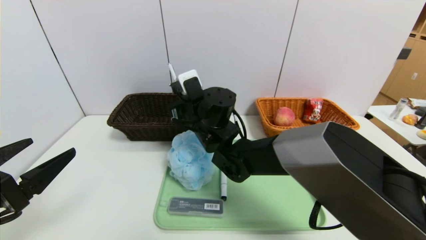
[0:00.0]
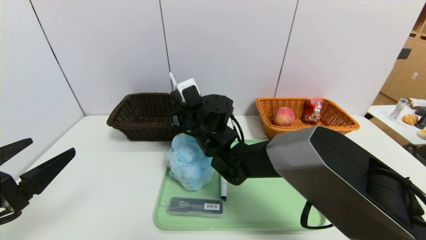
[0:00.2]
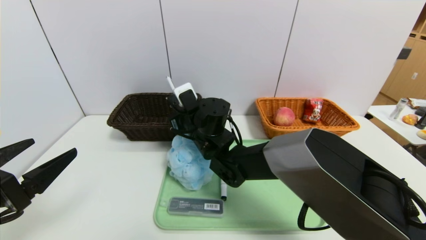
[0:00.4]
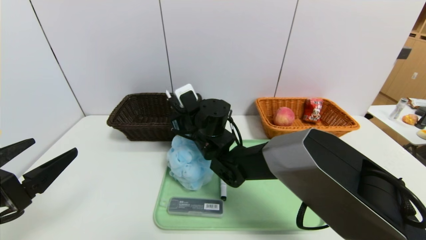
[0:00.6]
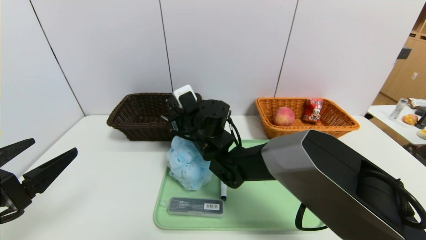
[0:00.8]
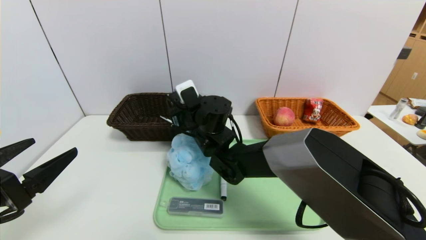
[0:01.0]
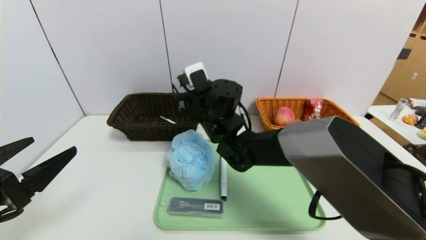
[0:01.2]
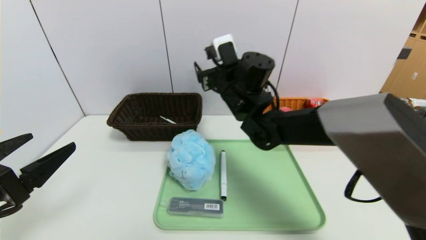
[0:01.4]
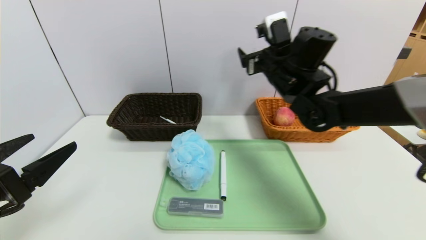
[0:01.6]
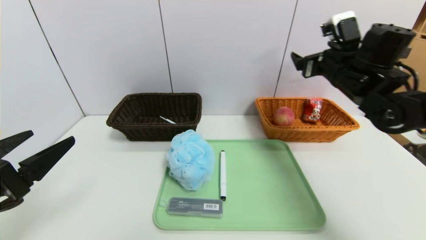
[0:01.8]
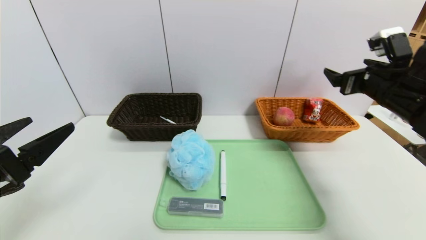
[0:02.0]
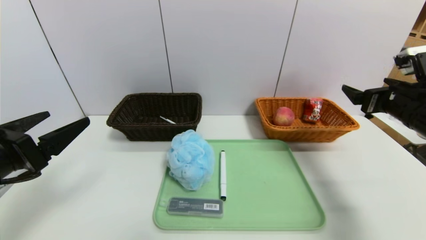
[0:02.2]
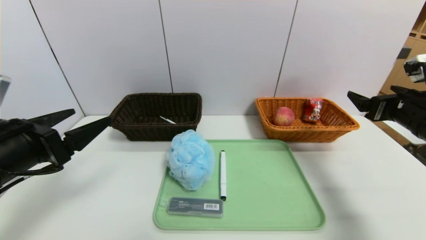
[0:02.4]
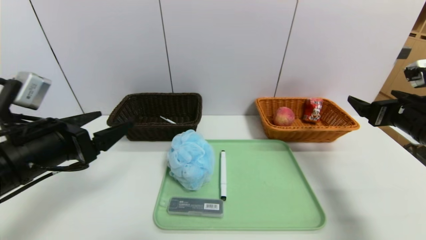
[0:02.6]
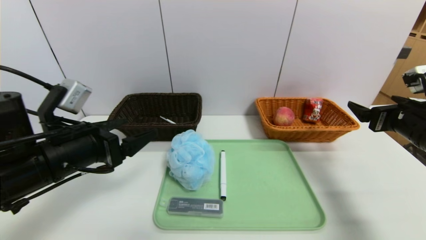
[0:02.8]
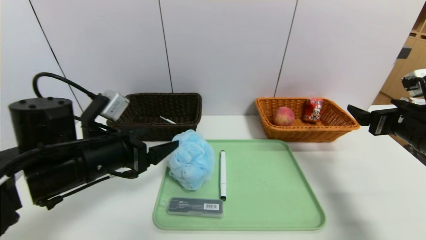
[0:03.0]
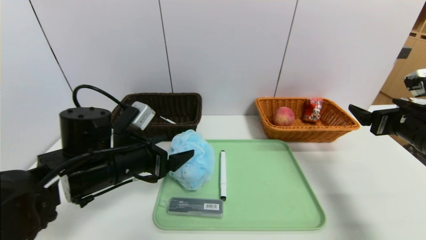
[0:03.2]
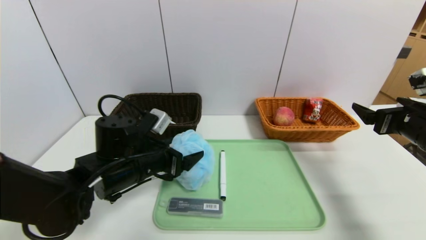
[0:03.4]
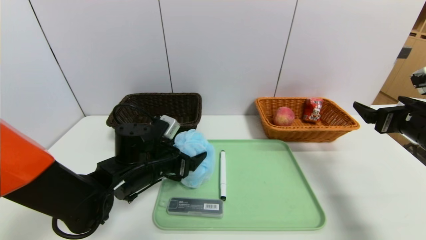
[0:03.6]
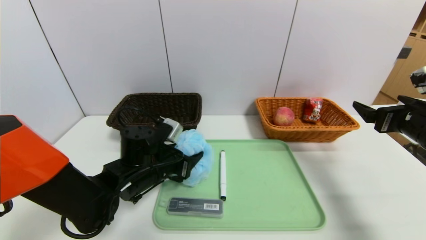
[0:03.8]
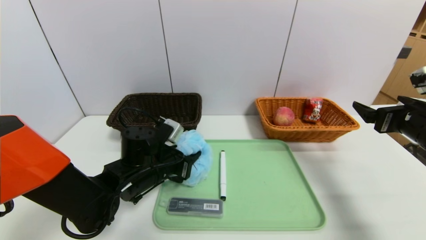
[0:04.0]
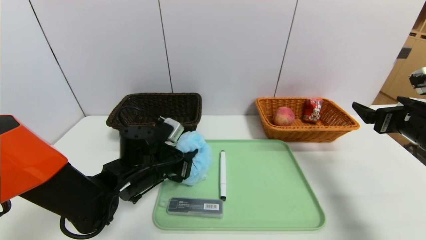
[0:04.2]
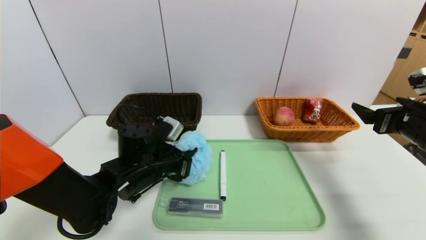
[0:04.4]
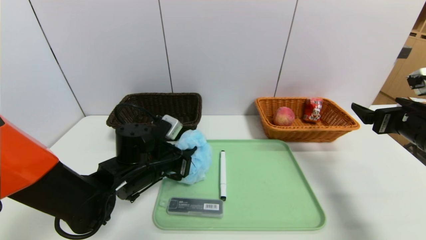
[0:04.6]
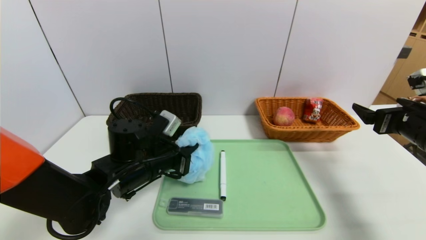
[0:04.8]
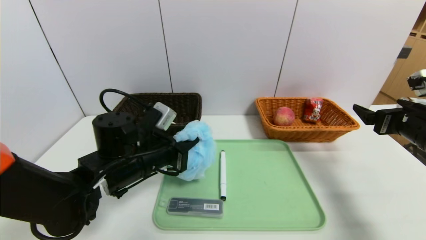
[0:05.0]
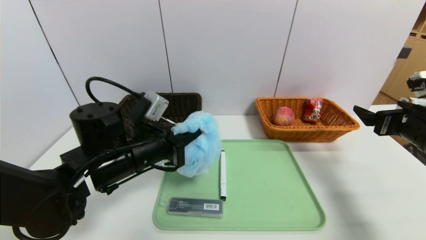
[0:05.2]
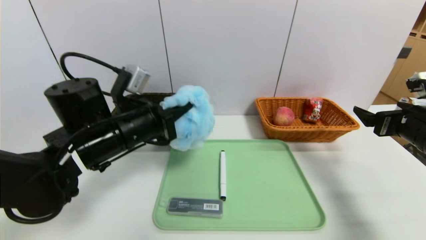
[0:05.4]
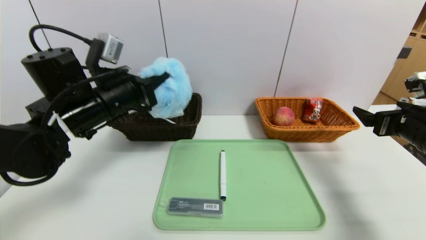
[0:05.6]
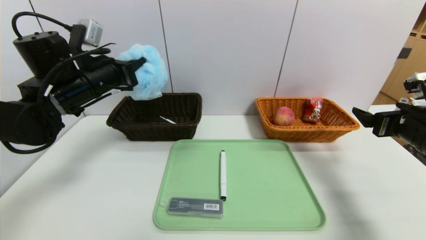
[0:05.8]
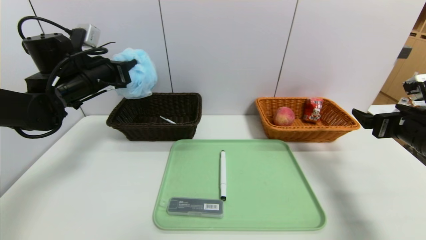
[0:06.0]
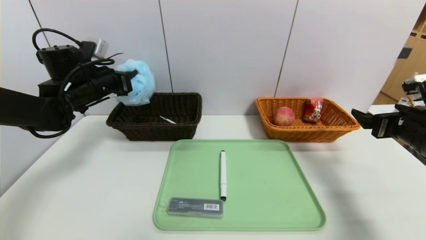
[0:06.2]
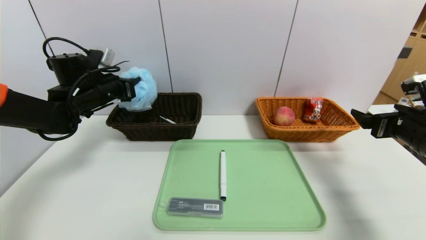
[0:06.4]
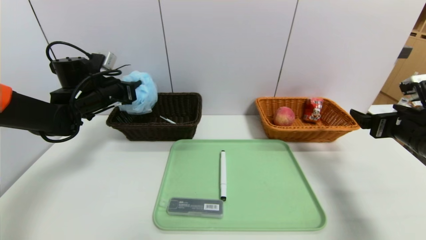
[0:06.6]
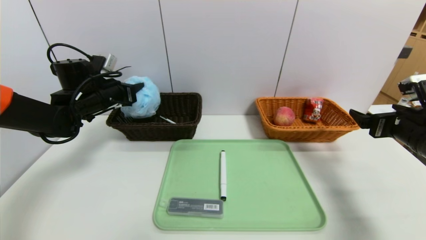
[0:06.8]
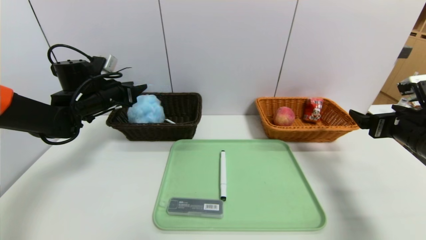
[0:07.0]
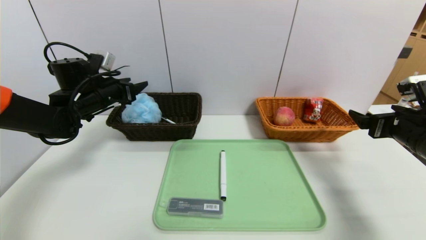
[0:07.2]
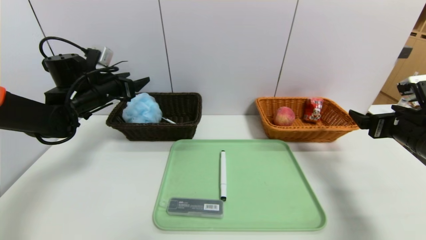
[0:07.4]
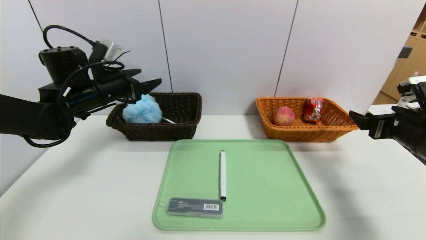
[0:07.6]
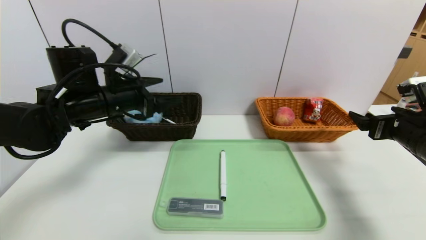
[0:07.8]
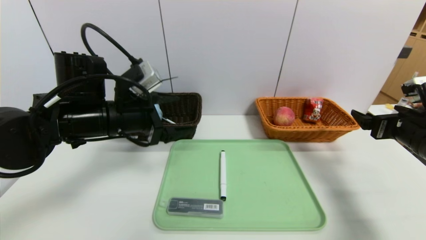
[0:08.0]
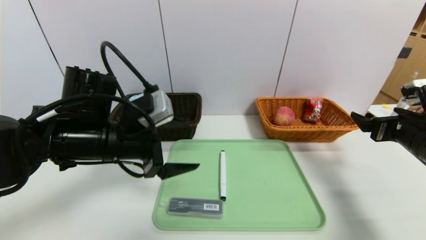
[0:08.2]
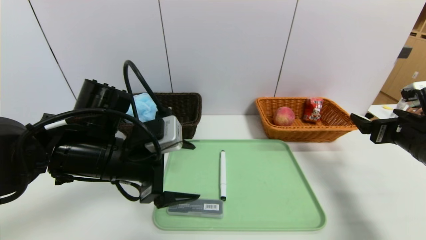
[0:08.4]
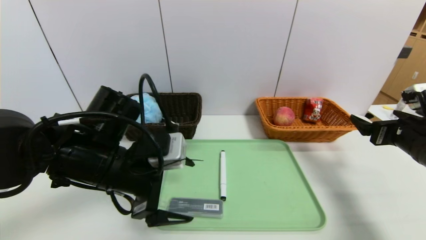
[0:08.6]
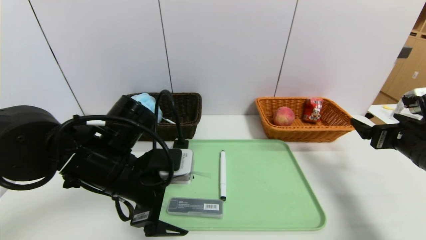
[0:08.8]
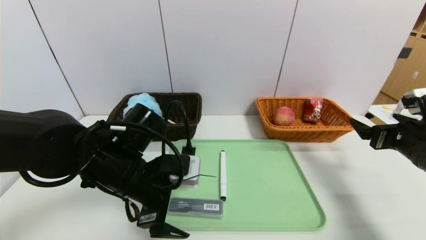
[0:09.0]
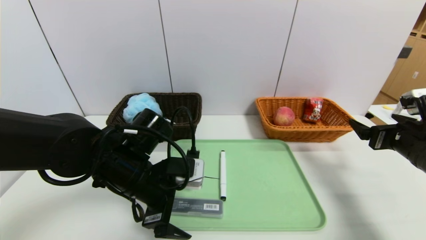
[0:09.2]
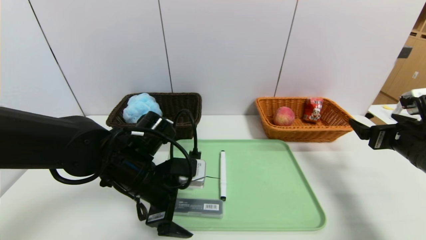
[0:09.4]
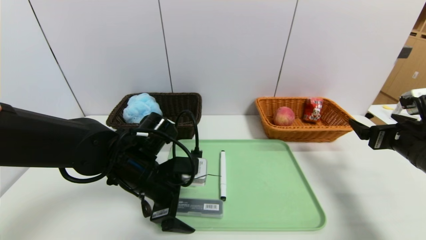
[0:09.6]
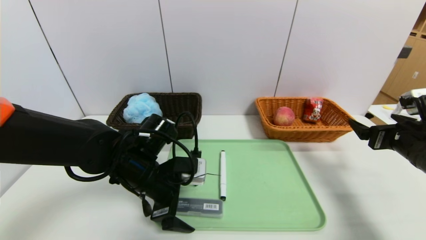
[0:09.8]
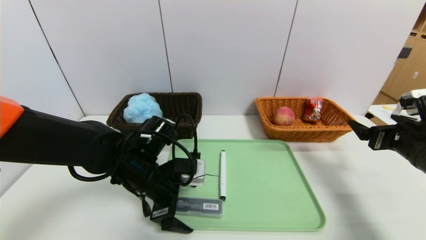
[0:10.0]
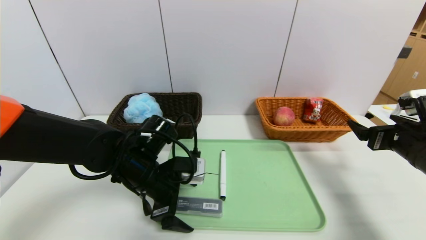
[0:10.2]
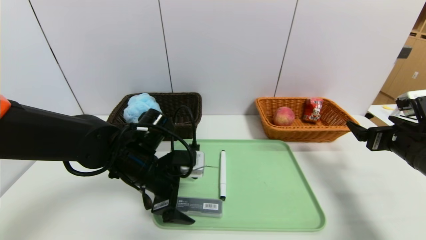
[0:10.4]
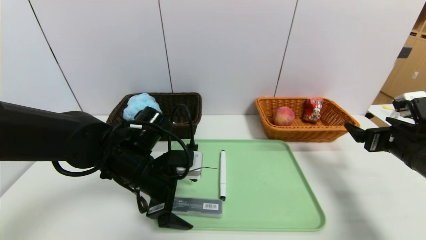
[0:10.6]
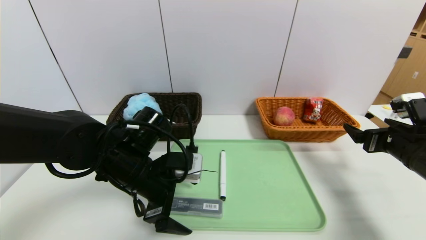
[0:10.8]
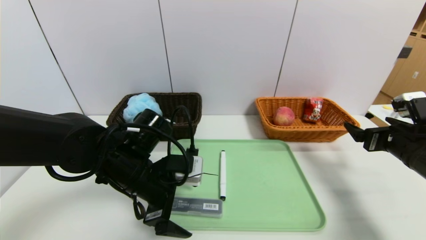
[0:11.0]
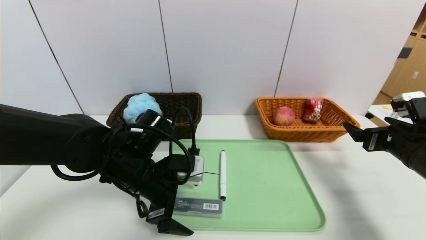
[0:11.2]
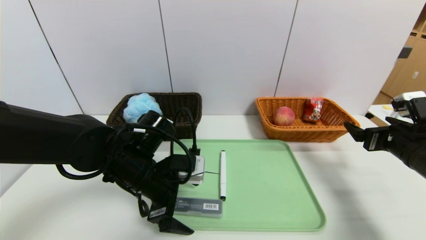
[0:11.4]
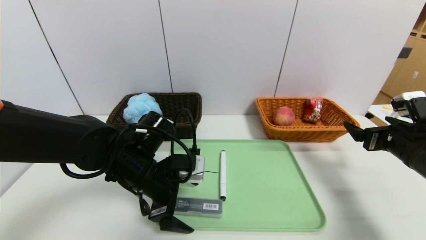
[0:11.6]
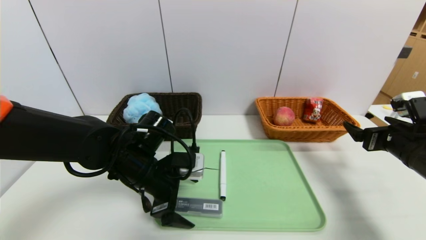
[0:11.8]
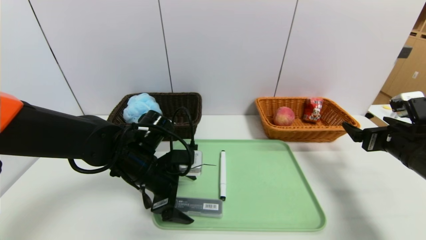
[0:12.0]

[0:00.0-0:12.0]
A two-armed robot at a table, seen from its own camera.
Task of the whole recording: place the food in the right basket with the right gripper, and place the non food items in the left basket with the left gripper.
Step, 1.8 to 7.2 s: Grasp the bath ball and put it in the left basket.
0.0 to 1.6 s: The right gripper travels to the right and upward by roughly 20 cm, and opens.
1.6 to 3.0 s: The right gripper shifts approximately 25 cm to the right and backward, while the left gripper travels forward and to the right by approximately 15 cm.
3.0 to 4.4 s: The left gripper goes some 10 cm downward, to the right and forward, and closes.
4.4 to 6.0 s: The left gripper heads upward, to the left and forward, covering approximately 25 cm.
6.0 to 7.6 s: The left gripper opens up.
7.6 to 9.0 s: The left gripper goes some 20 cm backward, to the right and downward.
9.0 to 12.0 s: The grippers make only small movements.

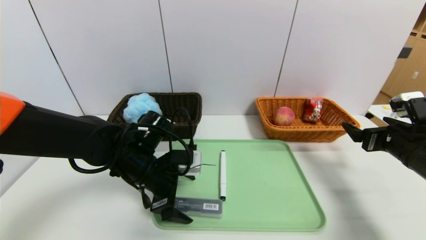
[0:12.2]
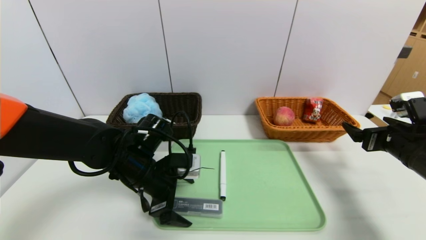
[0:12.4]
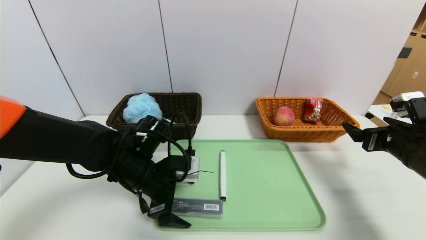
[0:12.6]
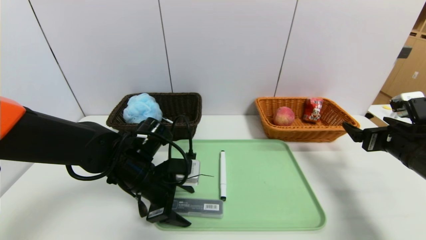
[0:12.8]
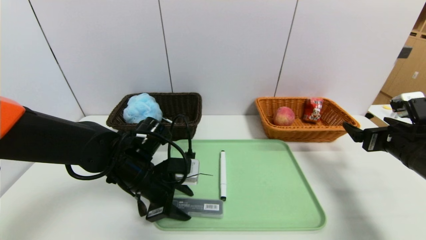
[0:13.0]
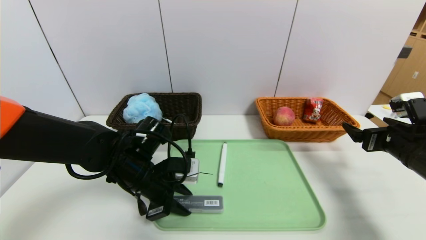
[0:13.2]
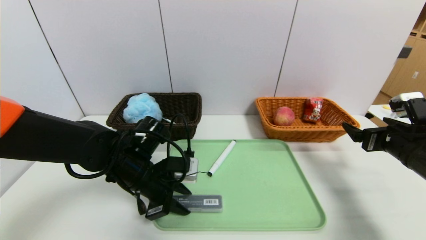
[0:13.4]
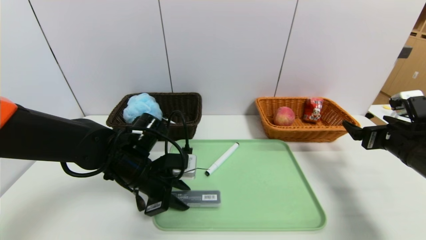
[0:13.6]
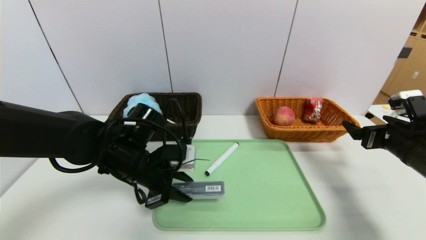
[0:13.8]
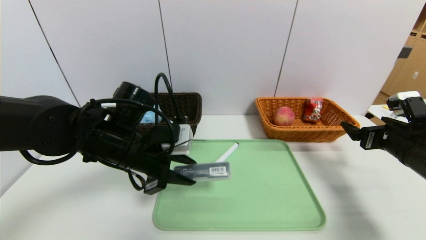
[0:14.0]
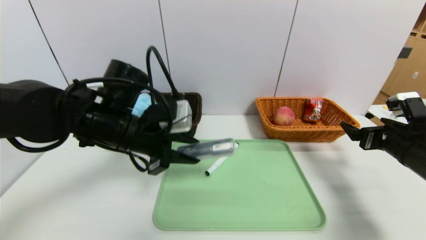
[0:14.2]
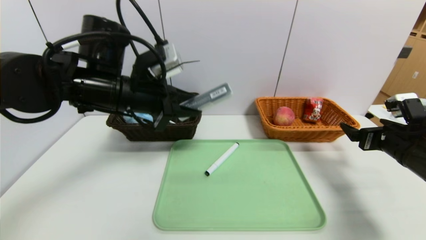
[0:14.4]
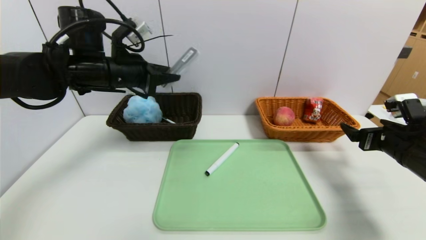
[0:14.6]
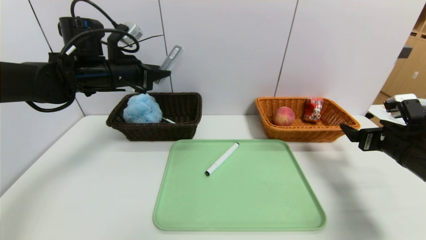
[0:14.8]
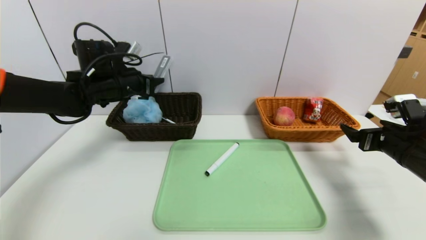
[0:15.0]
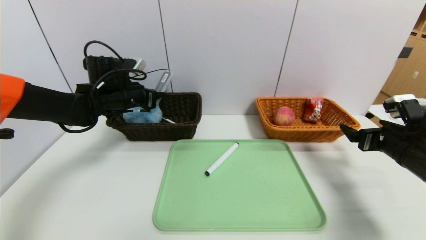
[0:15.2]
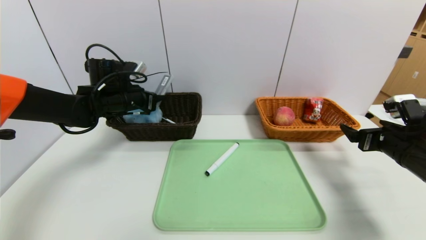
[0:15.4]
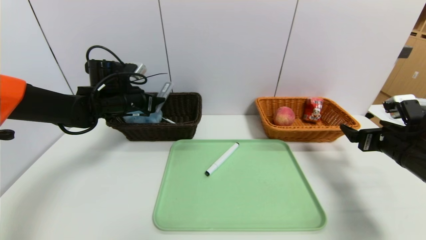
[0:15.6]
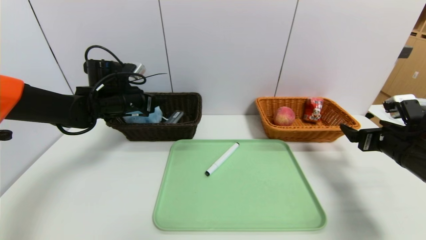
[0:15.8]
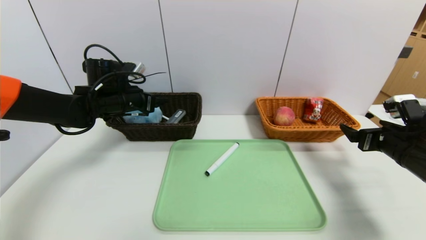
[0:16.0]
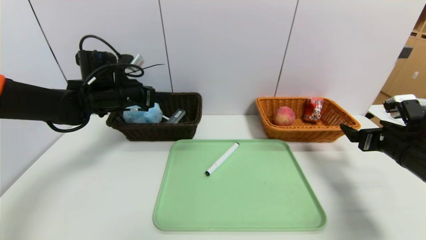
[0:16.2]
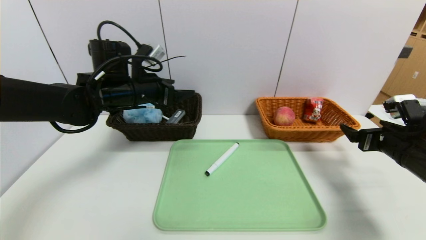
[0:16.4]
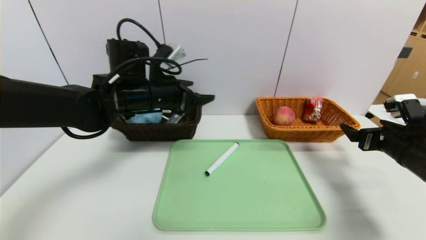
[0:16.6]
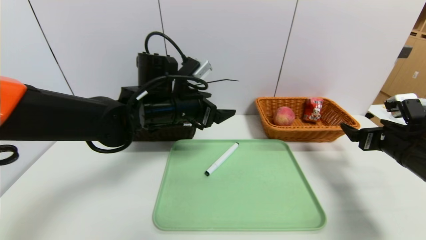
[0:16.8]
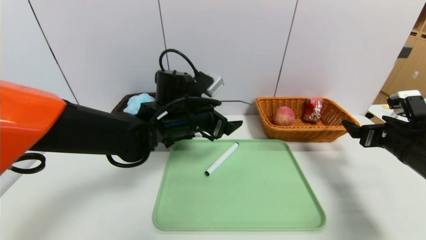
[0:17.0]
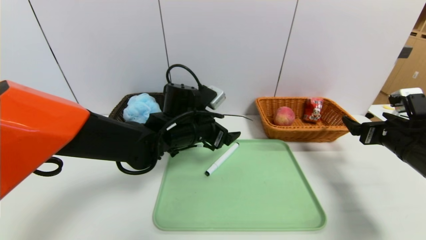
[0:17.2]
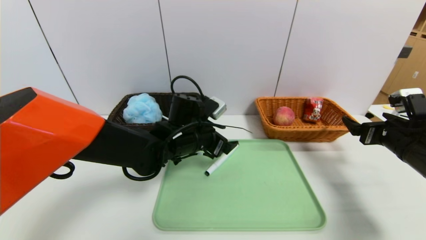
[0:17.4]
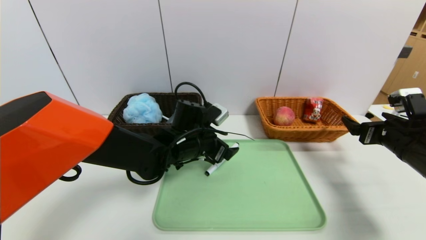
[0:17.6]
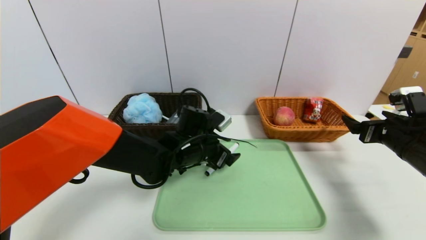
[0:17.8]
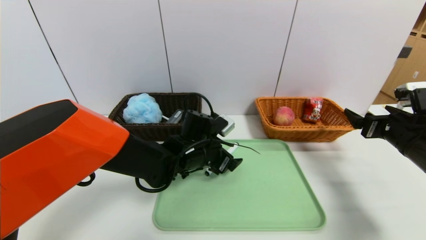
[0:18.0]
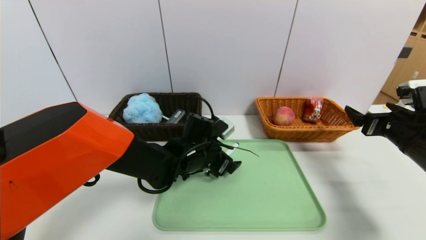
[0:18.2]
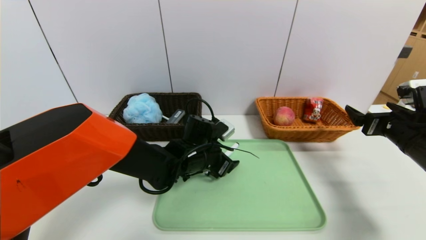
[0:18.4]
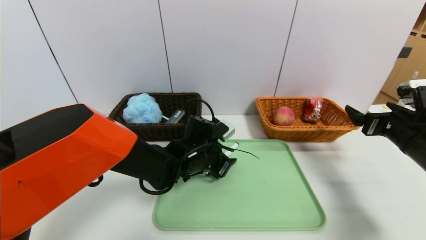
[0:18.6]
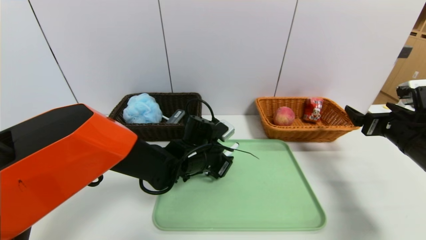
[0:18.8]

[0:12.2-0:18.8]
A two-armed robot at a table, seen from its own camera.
Task of the whole recording: place the food in the right basket with the right gripper, and place the non food items in the left basket with the left gripper.
Step, 12.2 to 16.2 s: Grasp the compass and put it in the left basket.
12.2 to 13.8 s: The left gripper closes up.
13.8 to 15.4 s: The left gripper travels forward and to the left by roughly 15 cm.
15.4 to 17.2 s: The left gripper heads to the right and backward, covering approximately 20 cm, and opens.
17.2 to 18.8 s: The left gripper is displaced downward by approximately 5 cm, and closes.
